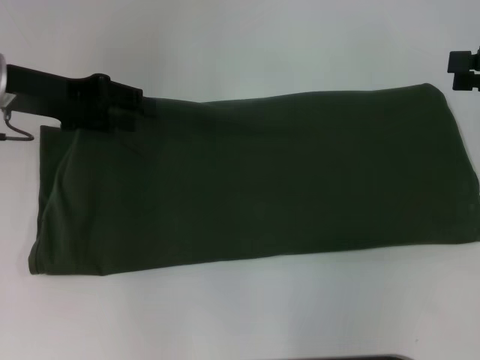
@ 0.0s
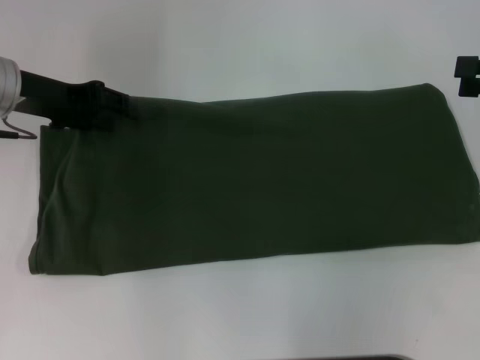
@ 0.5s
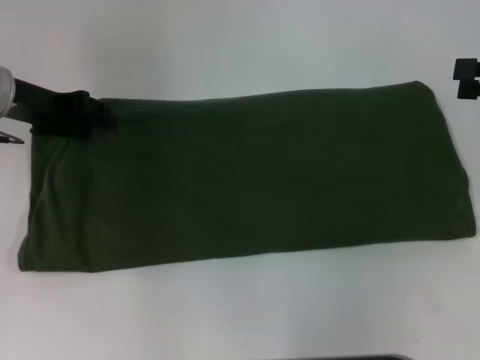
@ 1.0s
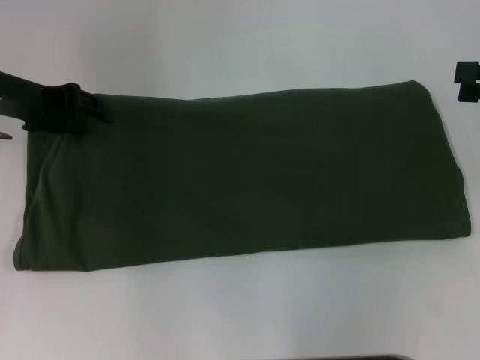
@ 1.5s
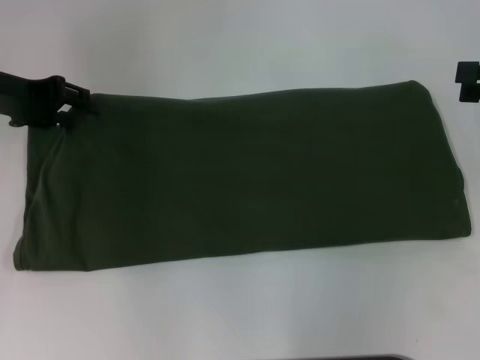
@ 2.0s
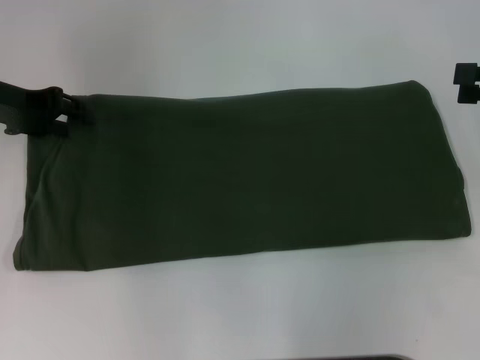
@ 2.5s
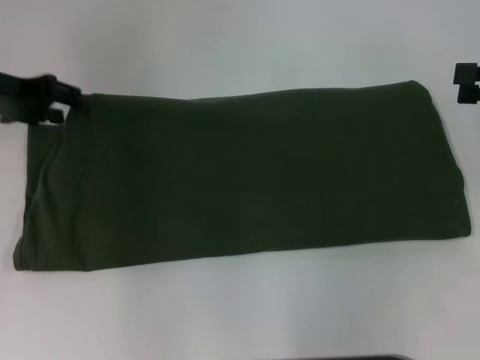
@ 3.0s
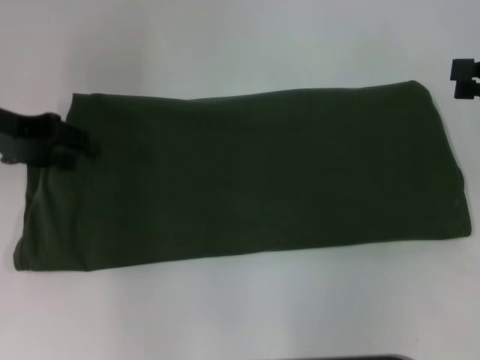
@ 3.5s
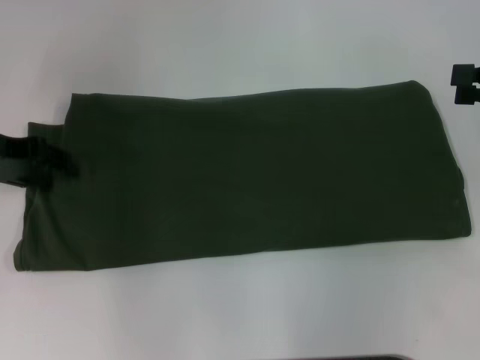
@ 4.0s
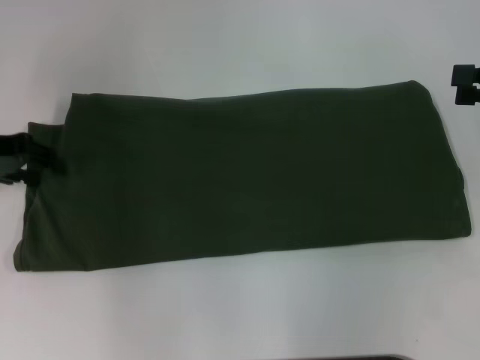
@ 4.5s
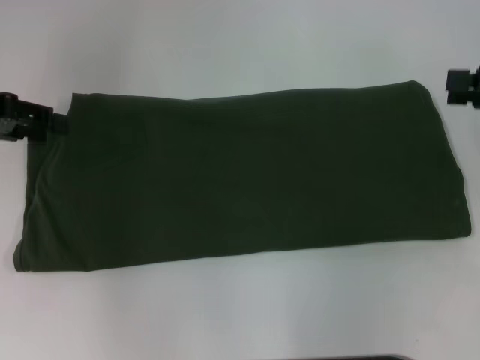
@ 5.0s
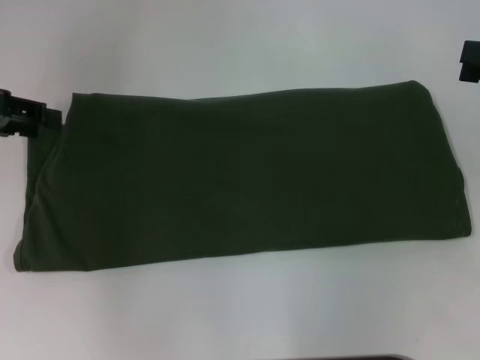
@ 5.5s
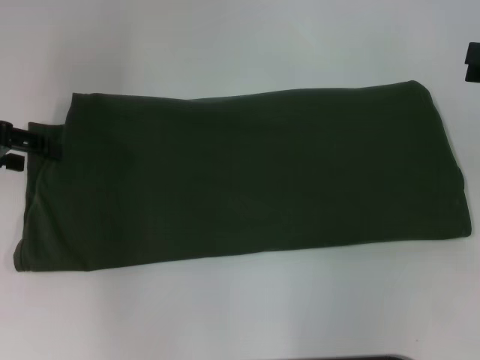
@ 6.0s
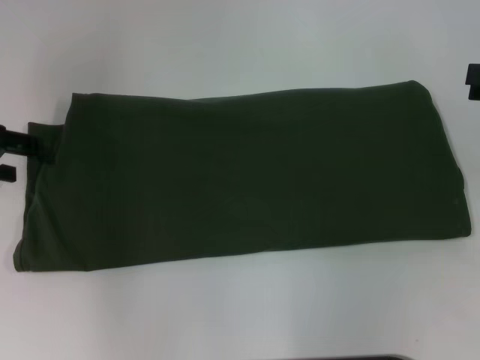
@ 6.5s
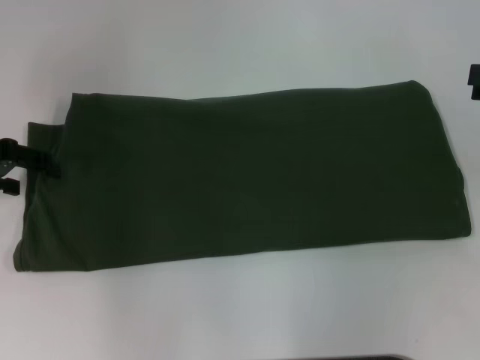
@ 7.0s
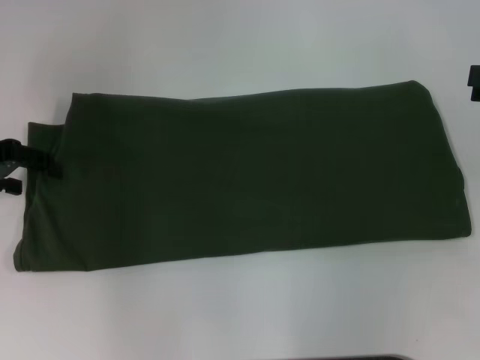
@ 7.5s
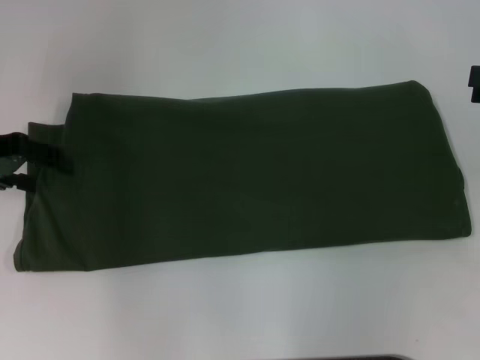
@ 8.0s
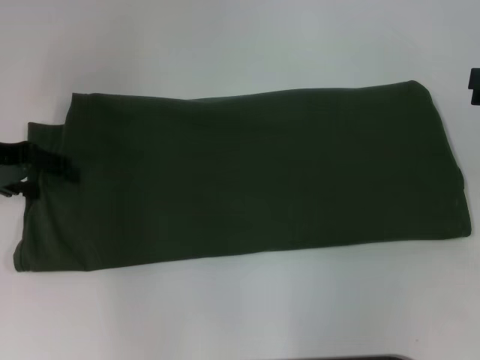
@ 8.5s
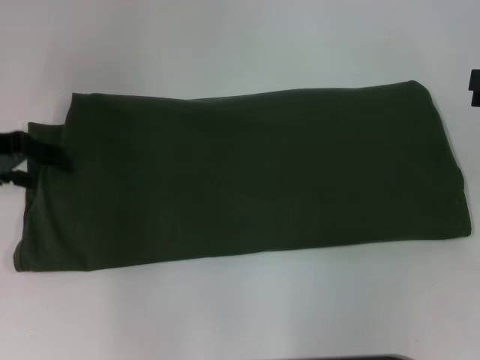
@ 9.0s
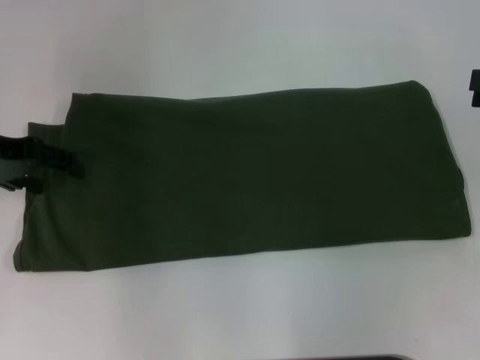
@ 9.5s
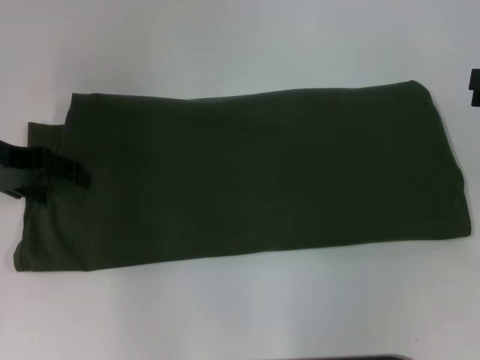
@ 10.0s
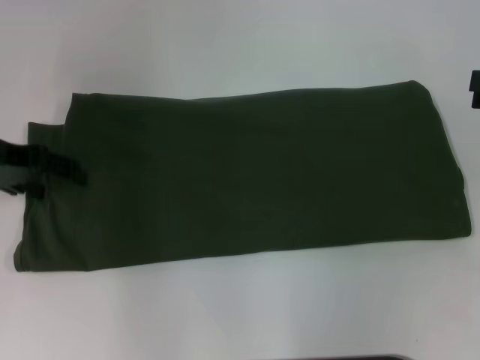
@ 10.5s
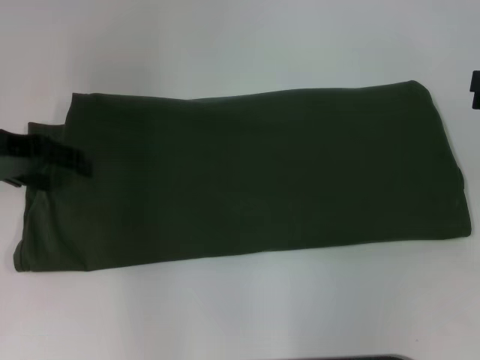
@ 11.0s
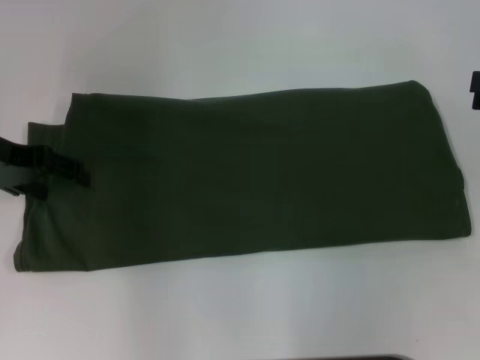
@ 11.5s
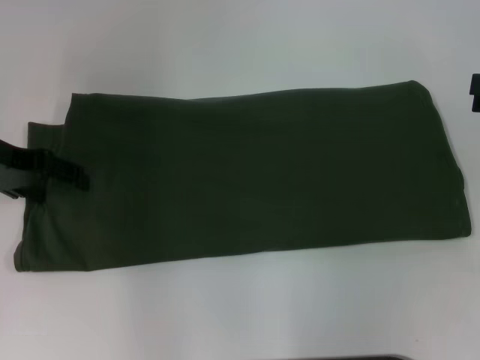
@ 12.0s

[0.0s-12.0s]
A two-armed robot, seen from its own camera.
2.0s to 4.0s: The grippers make only small movements.
4.0s to 6.0s: The left gripper opens up.
6.0s to 8.0s: There are only small adjustments of the grippers.

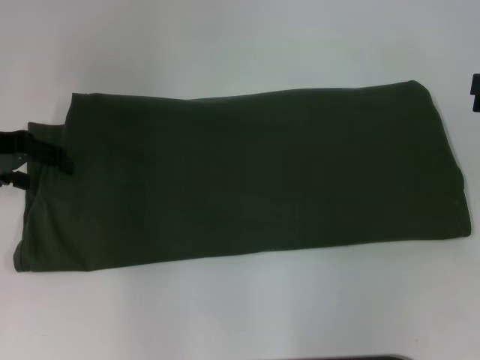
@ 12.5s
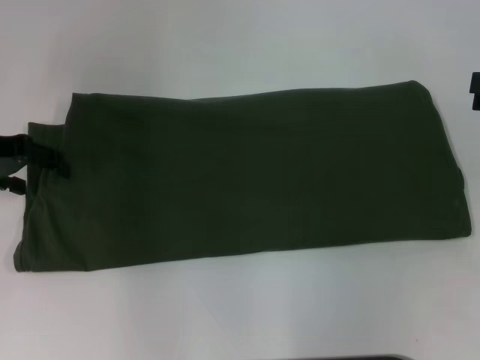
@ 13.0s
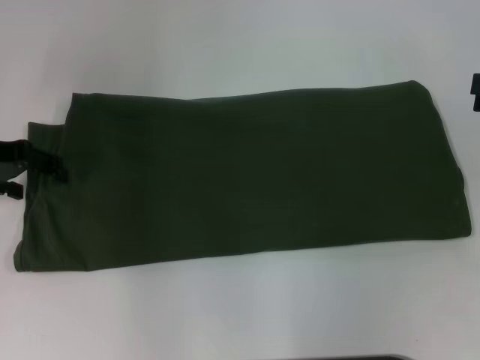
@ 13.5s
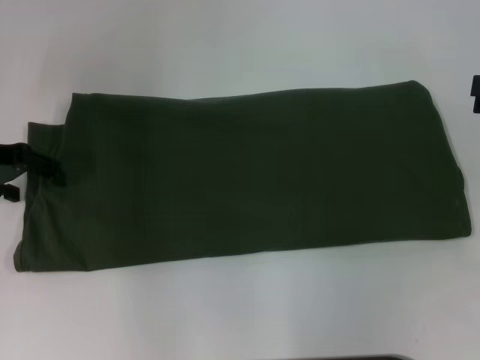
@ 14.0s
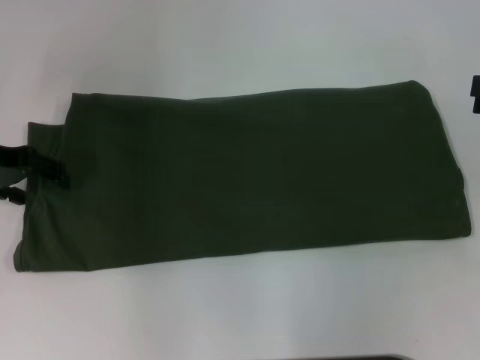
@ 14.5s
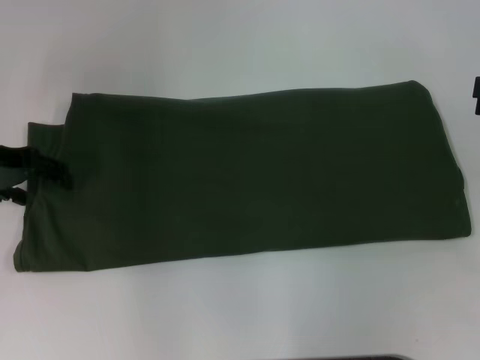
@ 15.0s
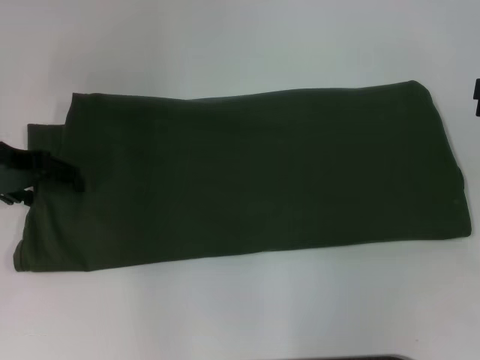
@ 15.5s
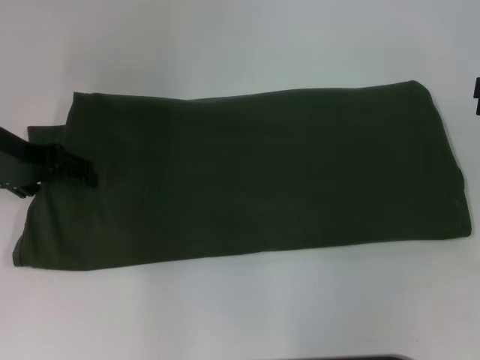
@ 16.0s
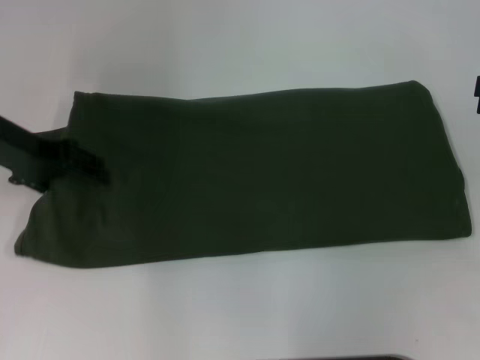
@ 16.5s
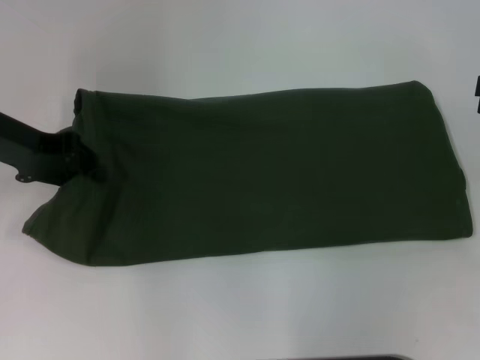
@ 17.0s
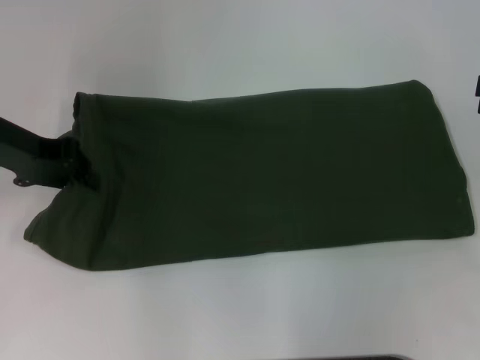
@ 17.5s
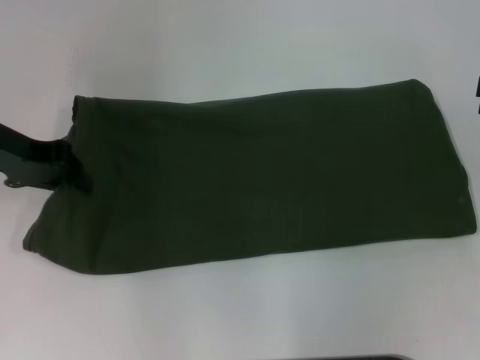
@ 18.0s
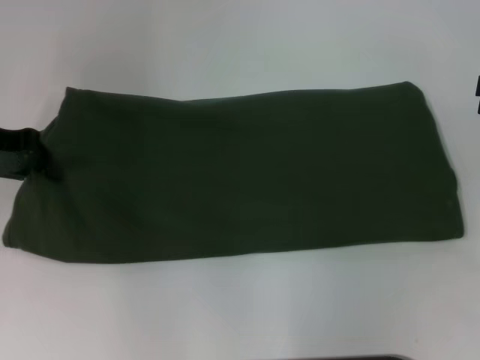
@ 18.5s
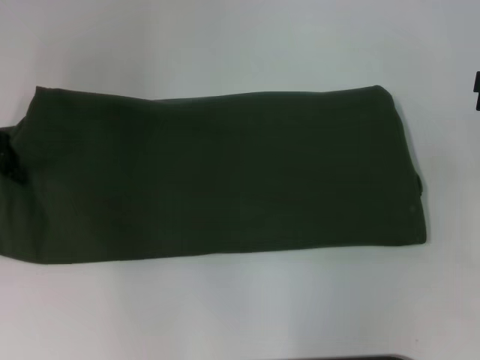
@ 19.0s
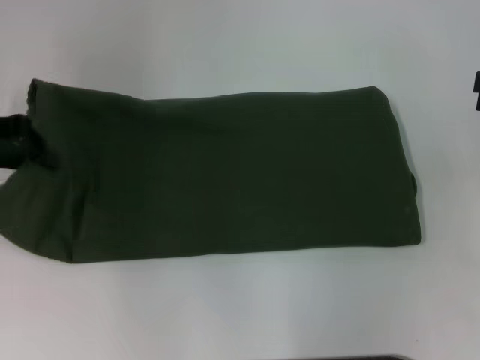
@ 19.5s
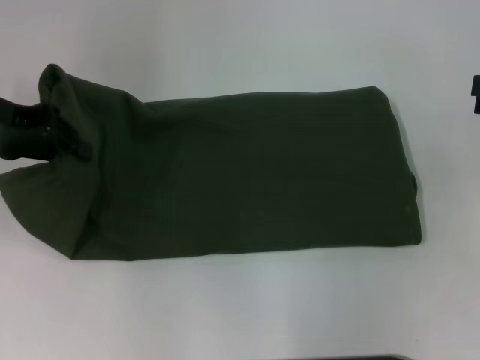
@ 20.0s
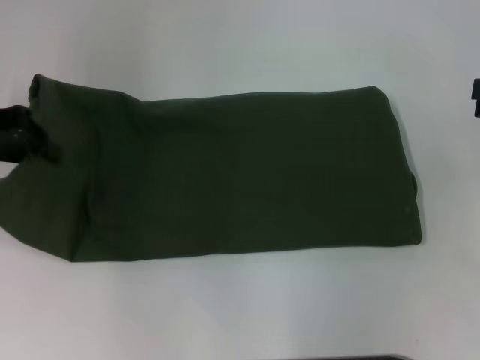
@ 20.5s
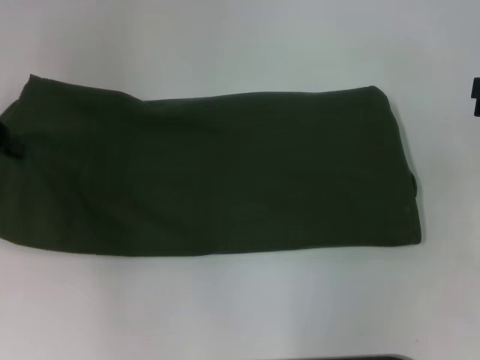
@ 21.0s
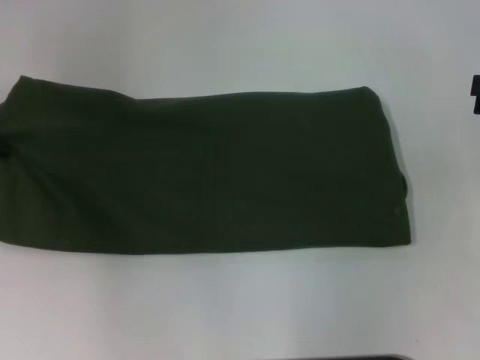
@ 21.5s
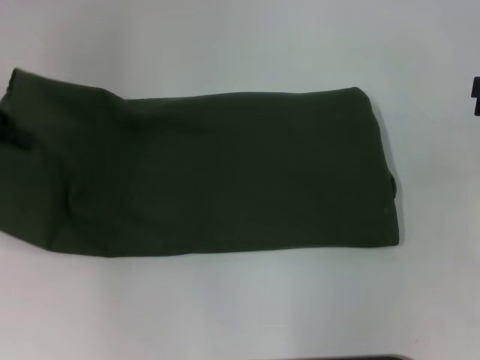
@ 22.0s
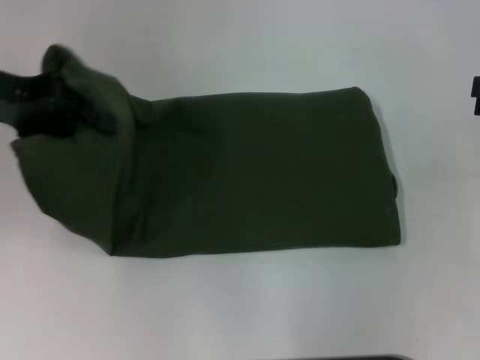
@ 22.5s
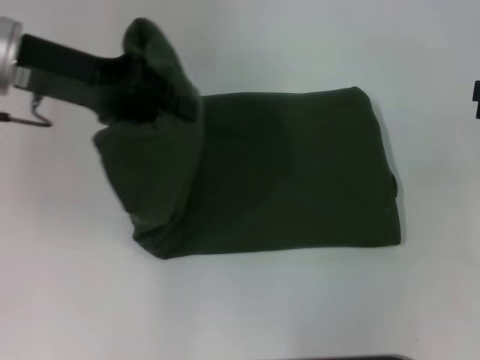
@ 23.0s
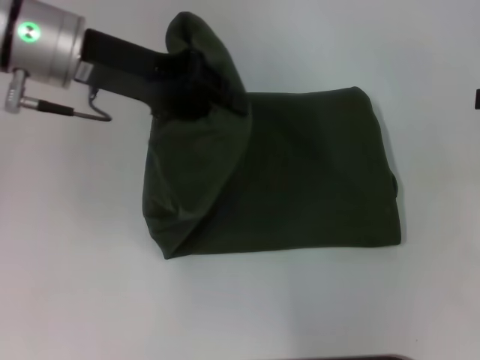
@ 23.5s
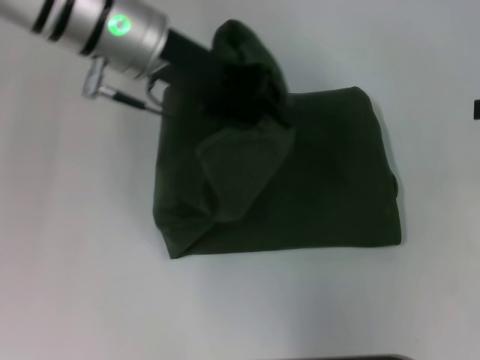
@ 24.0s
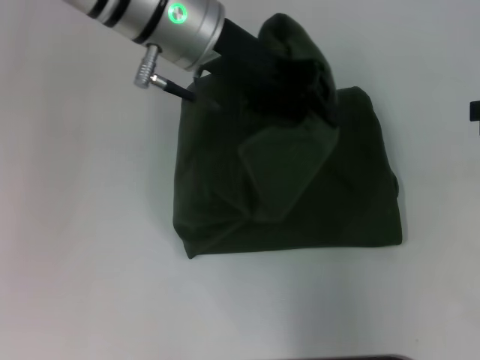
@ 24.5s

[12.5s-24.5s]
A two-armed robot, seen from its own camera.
12.5s to 16.5s: The grippers stay close to where they were, moving slightly.
16.5s to 18.5s: The left gripper closes up.
18.5s to 20.5s: The grippers make only small movements.
20.5s to 22.5s: The grippers stay close to where they were, moving slightly.
22.5s to 24.5s: The left gripper heads to the right, covering some 20 cm.

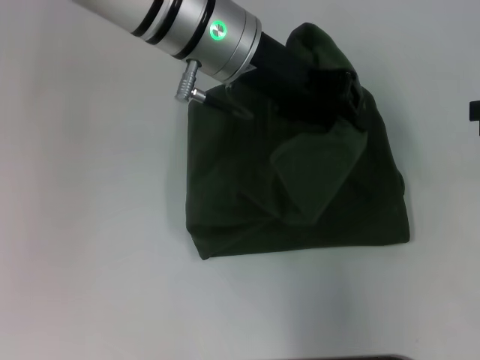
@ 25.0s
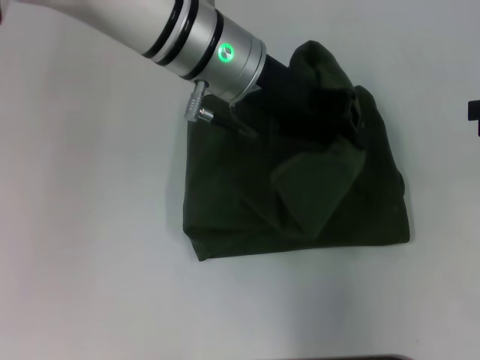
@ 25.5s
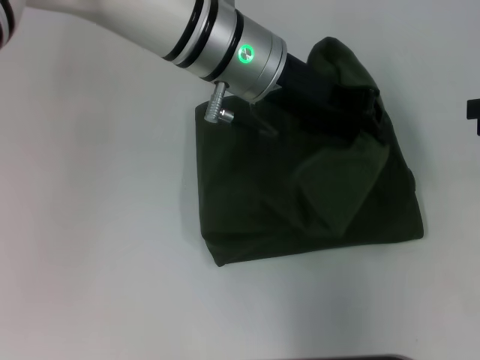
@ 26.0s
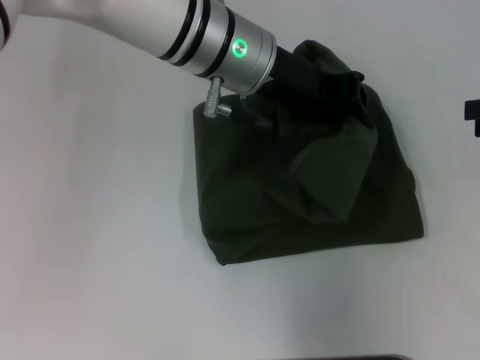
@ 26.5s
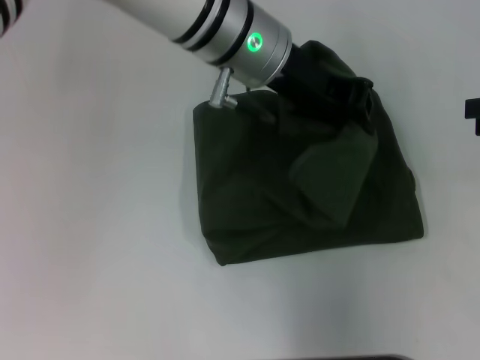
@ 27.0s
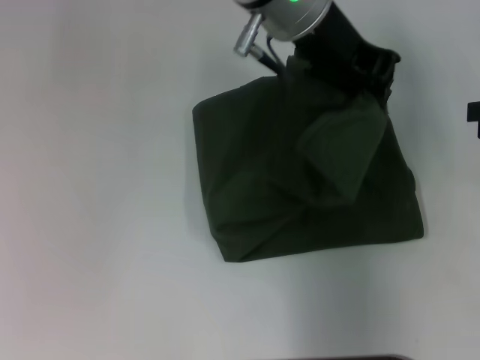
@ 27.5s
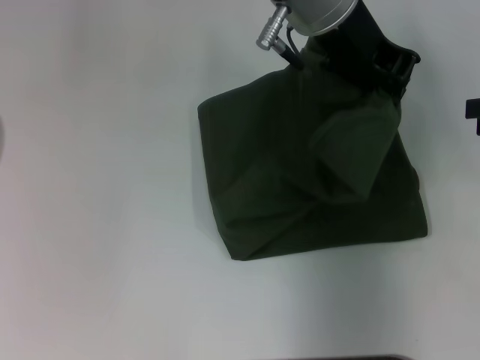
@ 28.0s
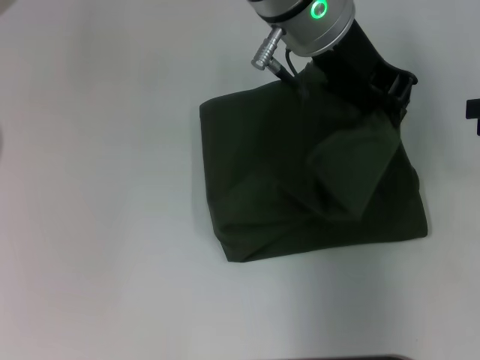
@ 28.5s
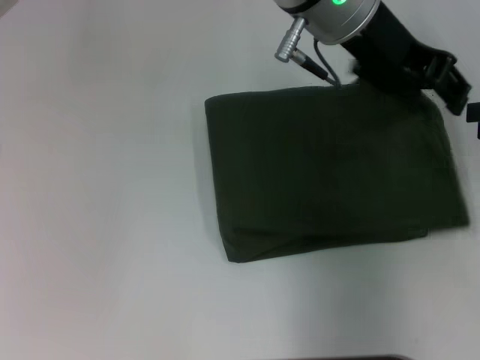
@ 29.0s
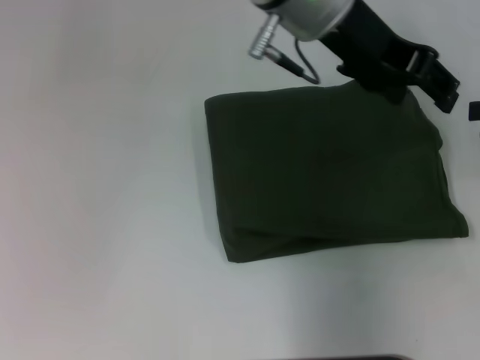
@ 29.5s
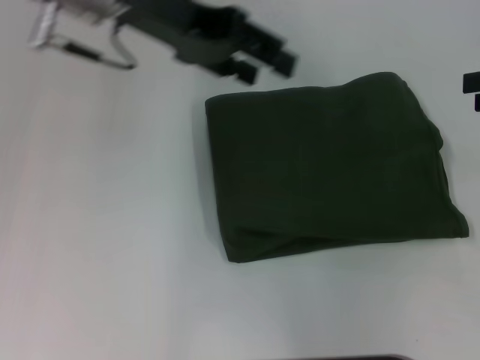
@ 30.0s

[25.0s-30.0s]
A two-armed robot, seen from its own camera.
25.0s to 27.5s: The left gripper goes about 5 cm to the right.
27.5s to 30.0s: The left gripper shifts some 15 cm to the left, and opens.
